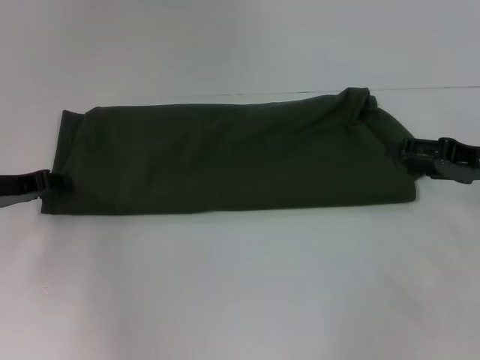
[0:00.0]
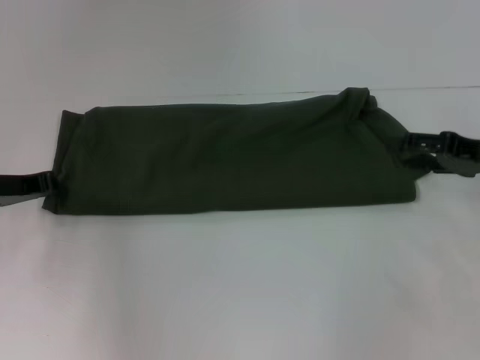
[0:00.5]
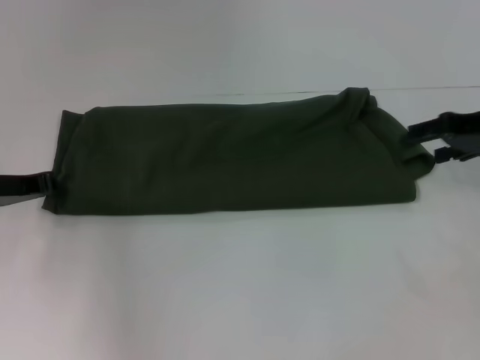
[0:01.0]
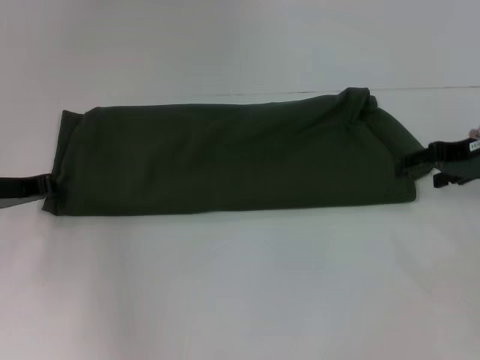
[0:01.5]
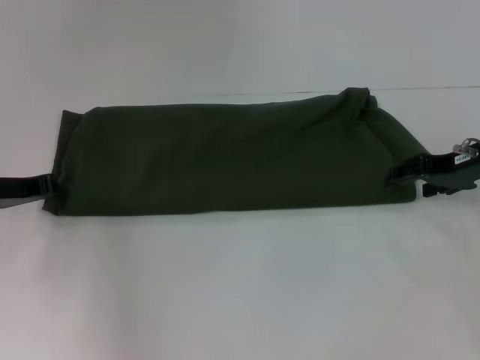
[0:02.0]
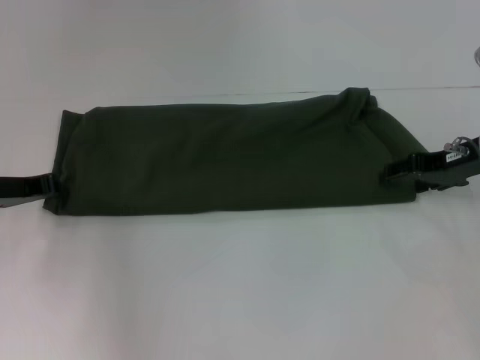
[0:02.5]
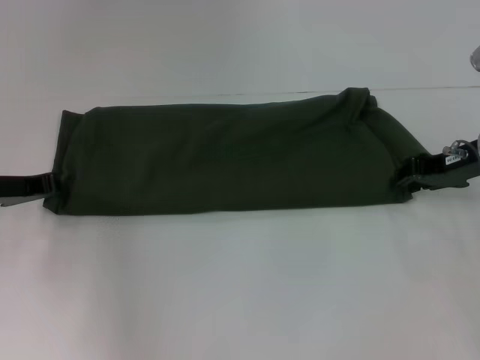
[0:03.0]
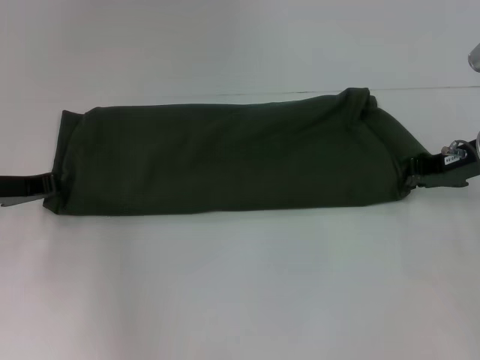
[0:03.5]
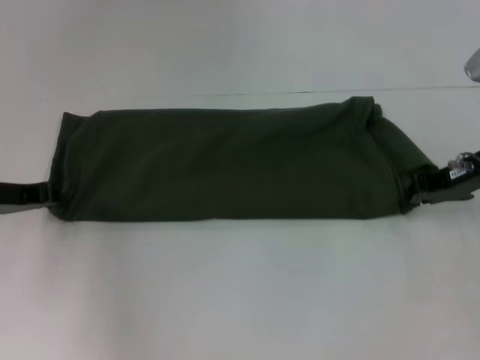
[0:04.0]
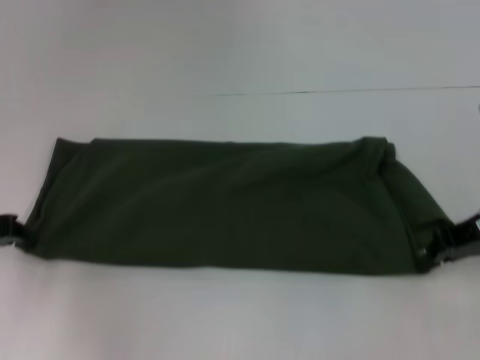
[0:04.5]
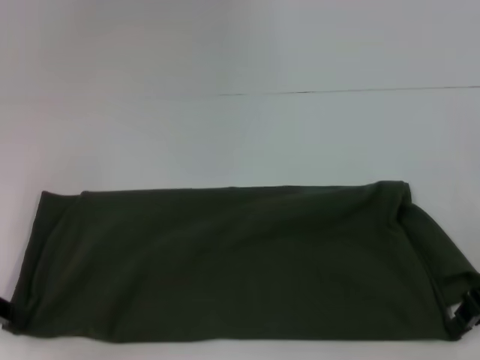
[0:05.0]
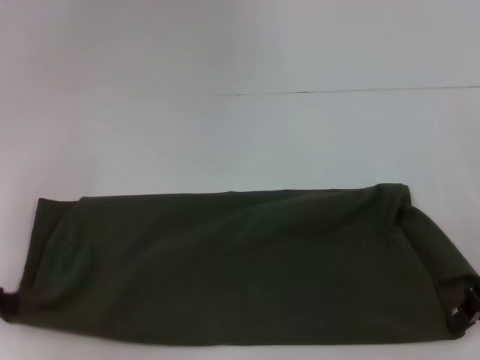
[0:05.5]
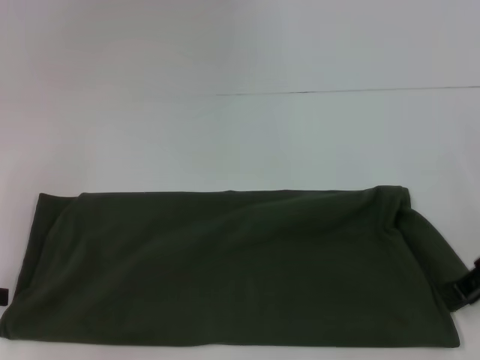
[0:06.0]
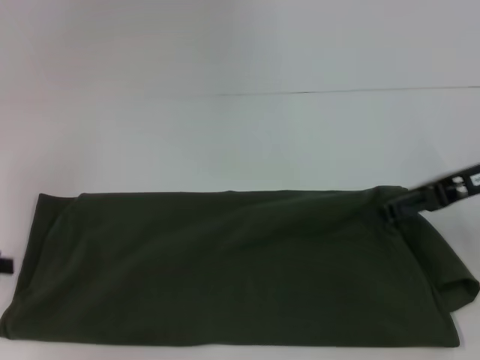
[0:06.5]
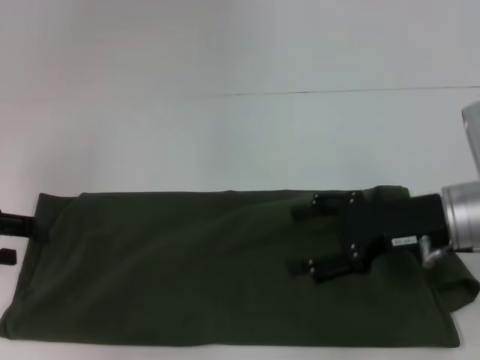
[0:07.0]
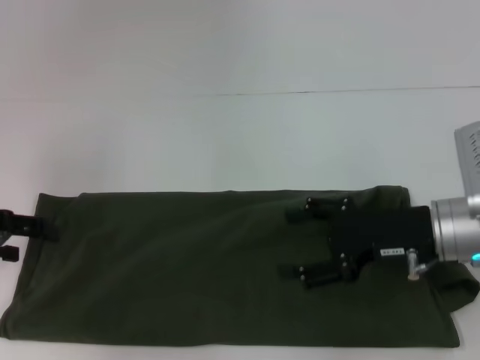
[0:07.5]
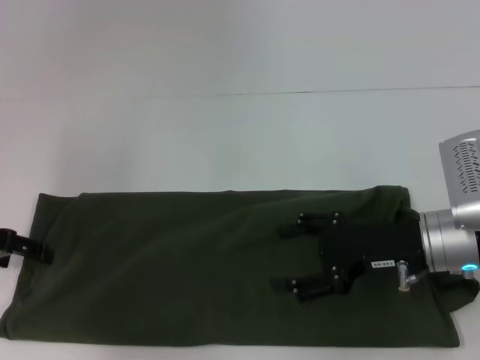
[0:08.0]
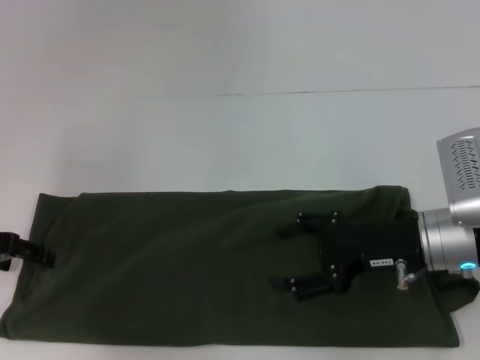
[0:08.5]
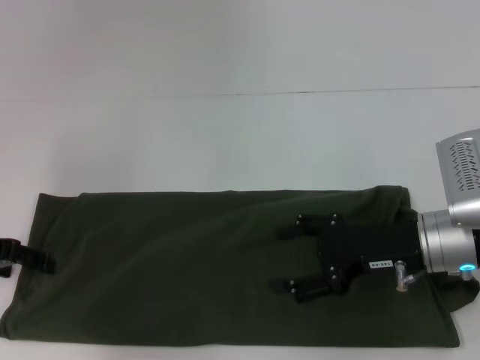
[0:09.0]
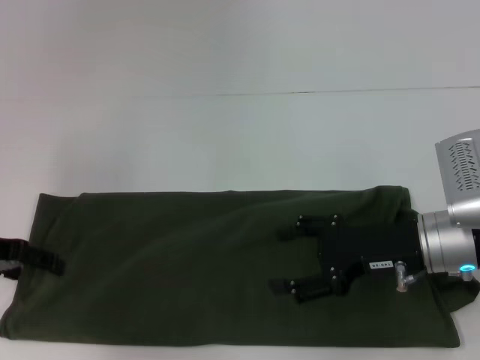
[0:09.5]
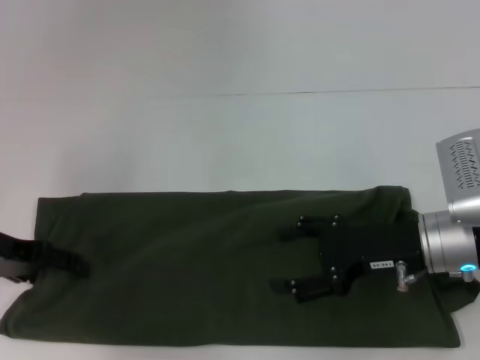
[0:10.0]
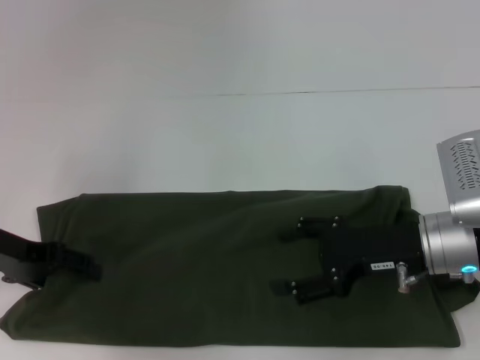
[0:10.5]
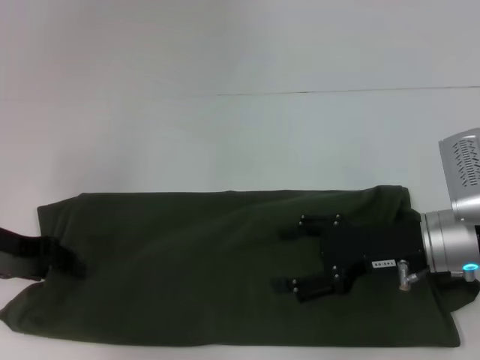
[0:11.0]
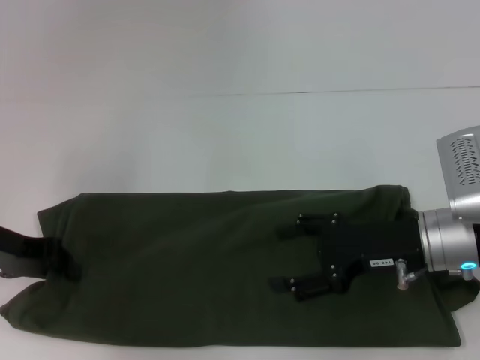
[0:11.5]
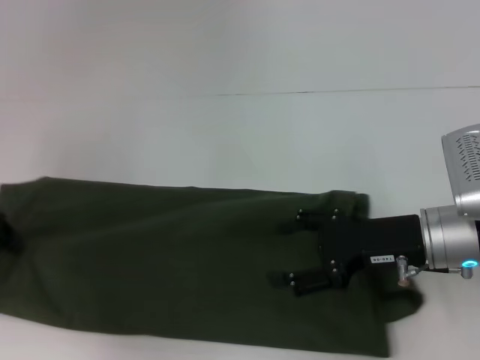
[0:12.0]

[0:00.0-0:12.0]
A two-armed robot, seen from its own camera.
0.0 to 2.0 s: The right gripper moves roughly 5 cm.
2.0 to 4.0 s: The right gripper closes.
4.0 to 6.0 s: The left gripper moves backward and to the left, some 10 cm; the right gripper shifts approximately 5 cm backward.
6.0 to 8.0 s: The left gripper heads forward, covering about 5 cm, and opens. The right gripper goes some 10 cm to the left and downward, and opens up.
8.0 to 10.0 s: The grippers stay close to where they were, moving slightly.
10.0 to 12.0 s: The left gripper closes.

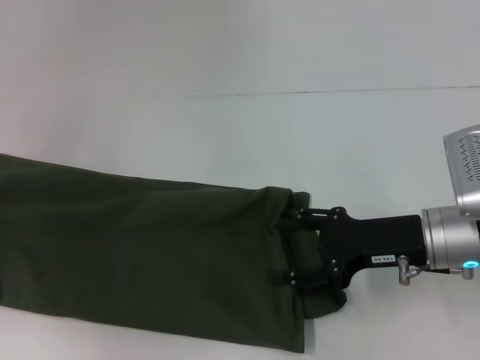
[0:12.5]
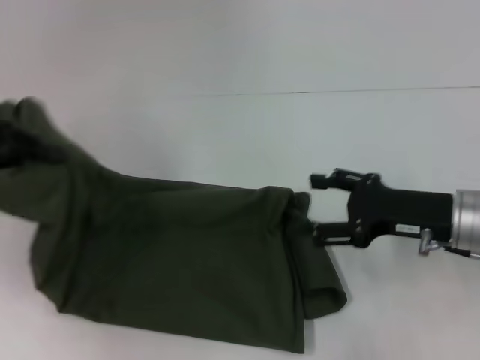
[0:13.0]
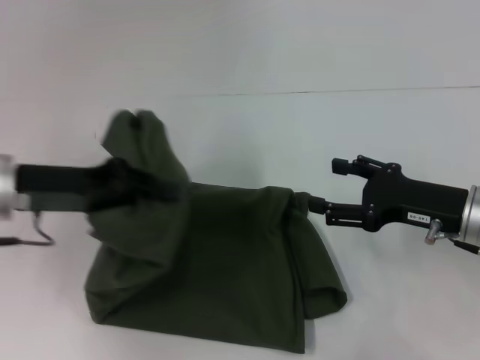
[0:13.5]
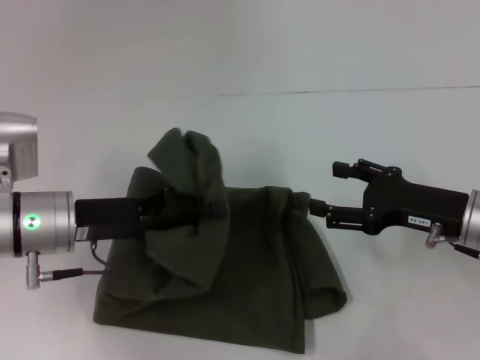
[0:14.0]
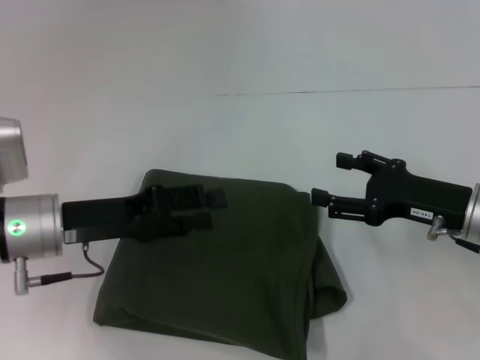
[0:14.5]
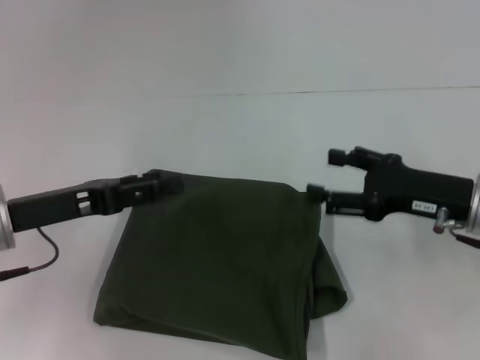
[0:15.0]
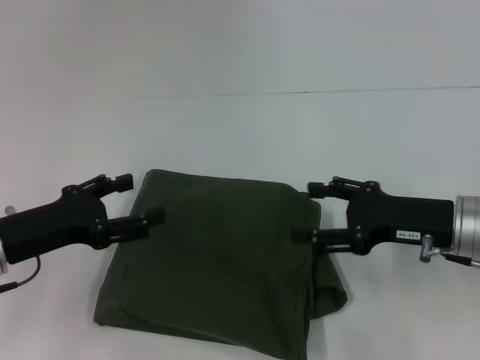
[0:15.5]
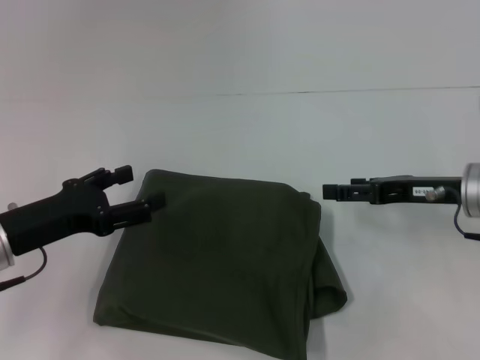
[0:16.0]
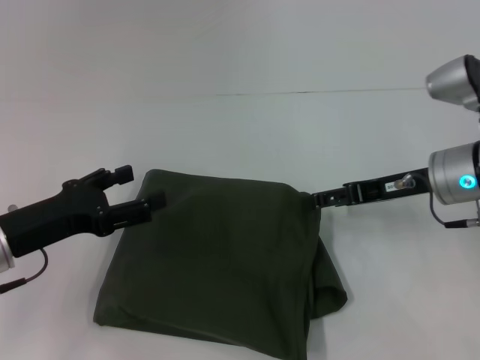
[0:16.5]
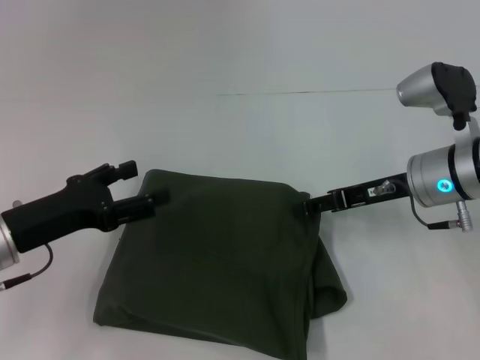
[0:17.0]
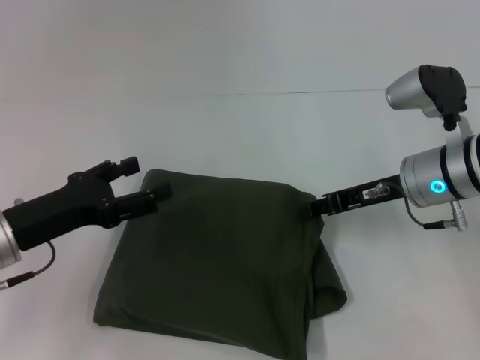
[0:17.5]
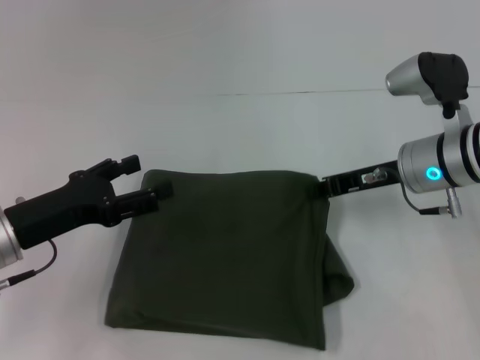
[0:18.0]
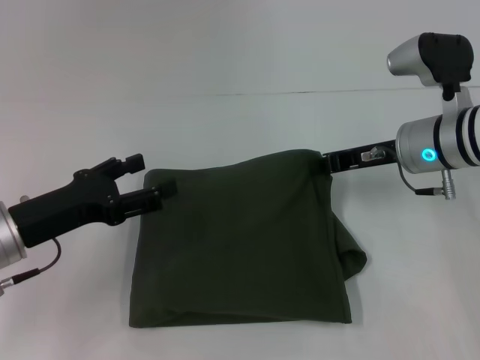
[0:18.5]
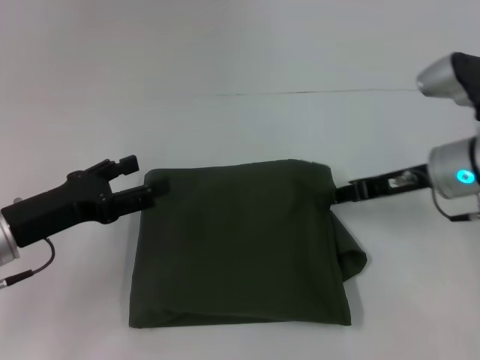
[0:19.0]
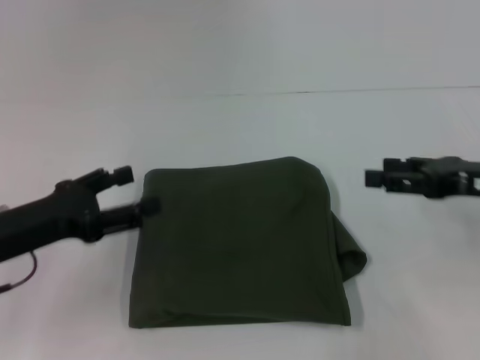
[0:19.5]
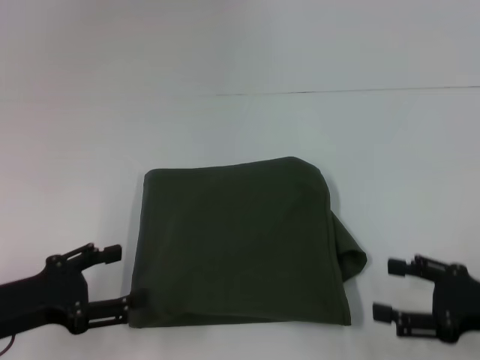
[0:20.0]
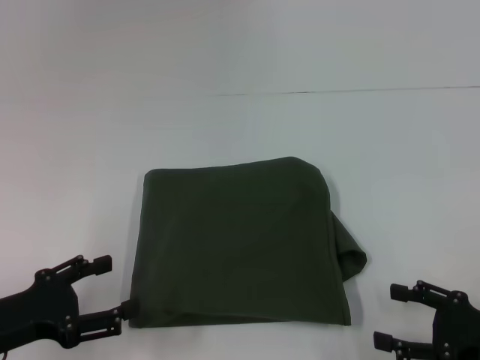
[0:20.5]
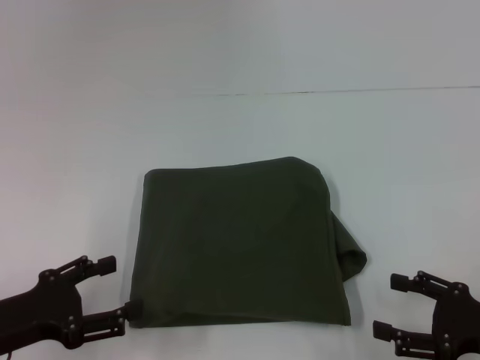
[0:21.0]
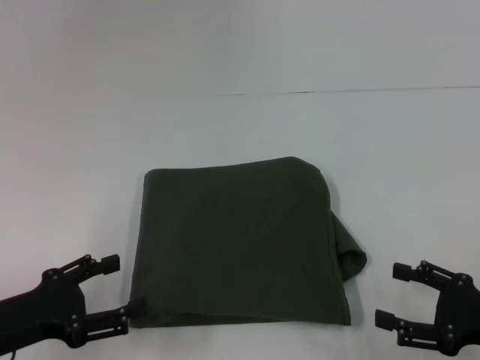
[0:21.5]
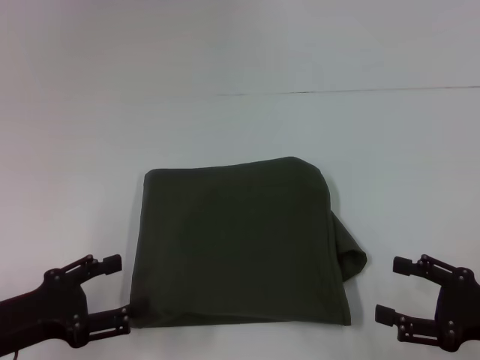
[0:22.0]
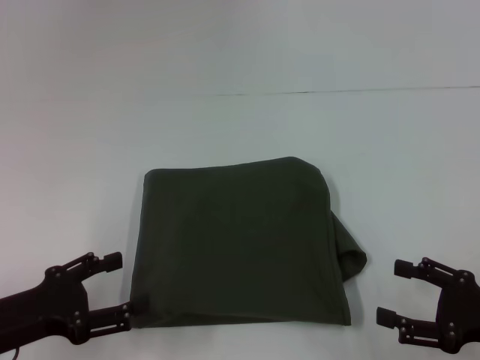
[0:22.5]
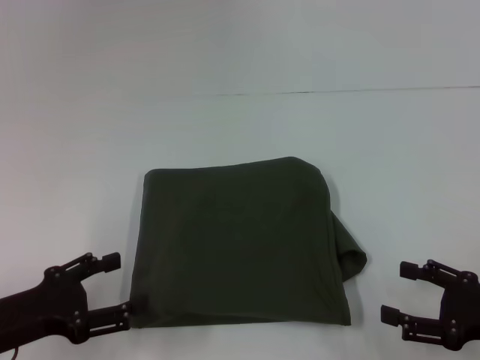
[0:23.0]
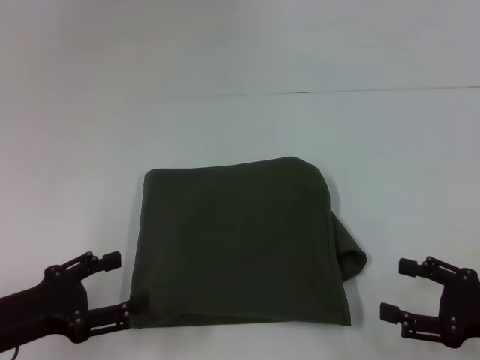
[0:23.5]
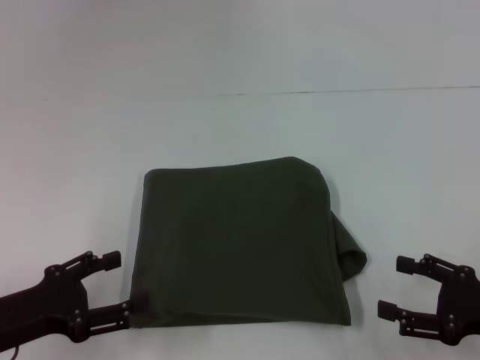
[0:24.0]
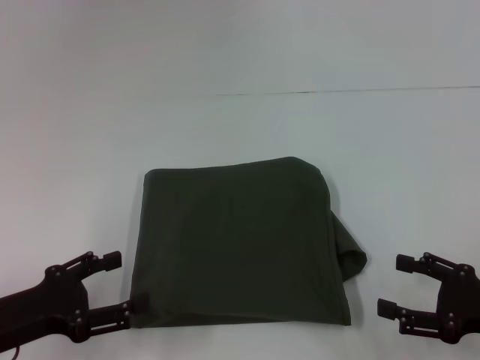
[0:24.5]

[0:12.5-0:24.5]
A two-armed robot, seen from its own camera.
Step, 12.5 to 14.5 s: Fold the clothes with your left hand.
12.5 to 14.5 s: The left gripper goes some 20 cm to the right, and opens up.
14.5 to 16.5 s: The left gripper shifts by approximately 5 cm, and opens its fingers. Meanwhile the right gripper is displaced forward by about 5 cm.
16.5 to 18.5 s: The right gripper closes up.
18.5 to 20.5 s: The left gripper is displaced backward by about 10 cm. The right gripper is displaced backward and to the right by roughly 25 cm, and opens up.
20.5 to 22.5 s: The grippers stay close to where they were, moving slightly.
22.5 to 24.5 s: Both grippers stay put.

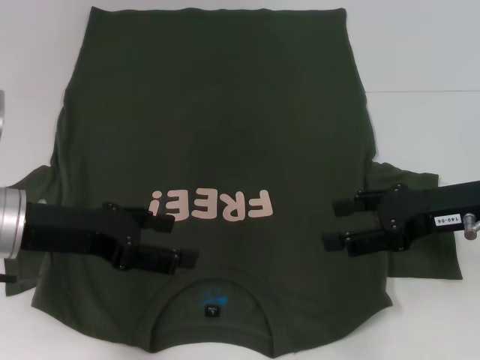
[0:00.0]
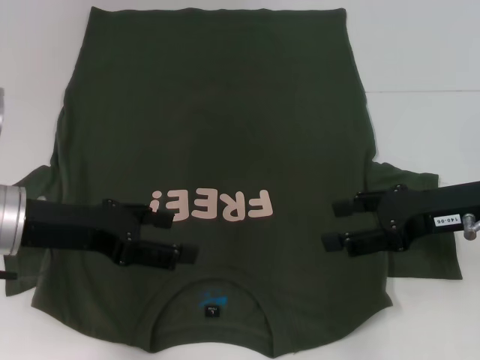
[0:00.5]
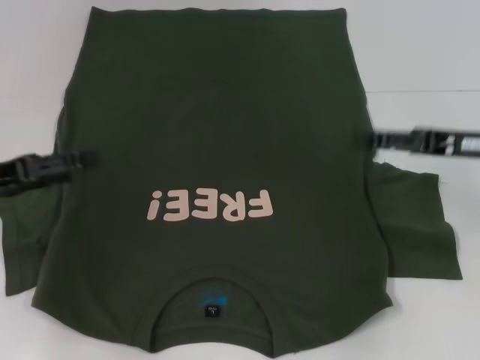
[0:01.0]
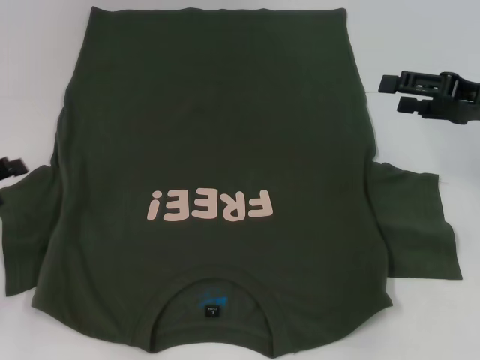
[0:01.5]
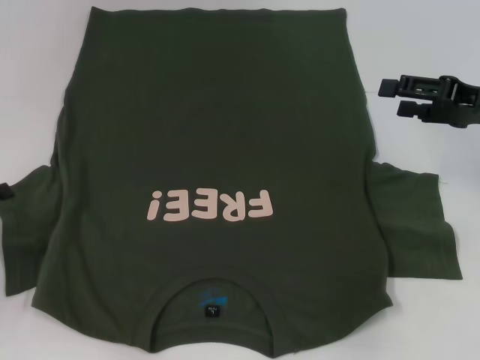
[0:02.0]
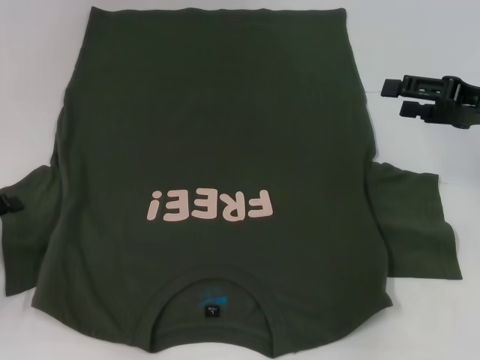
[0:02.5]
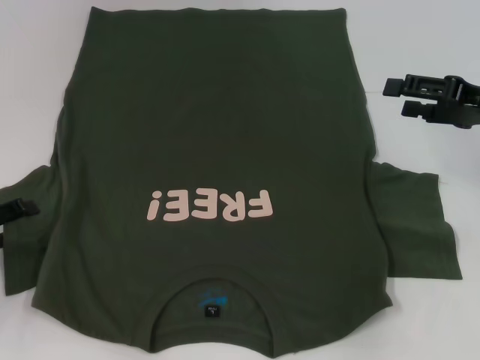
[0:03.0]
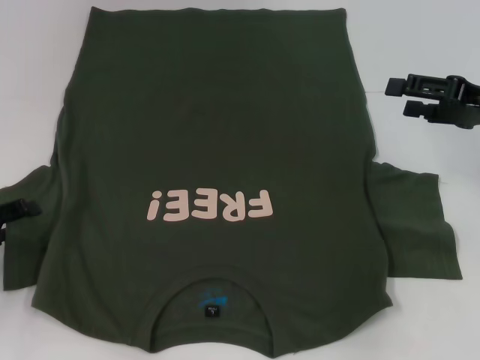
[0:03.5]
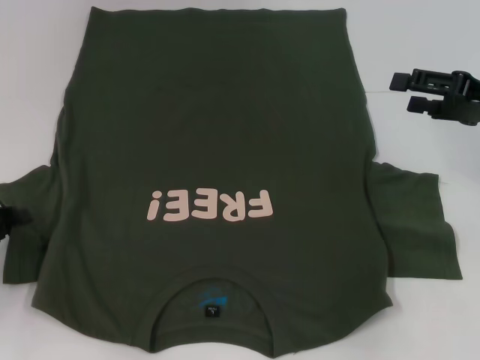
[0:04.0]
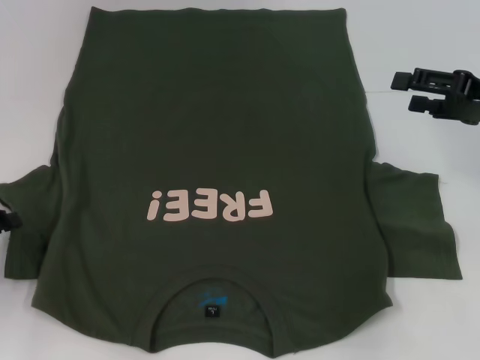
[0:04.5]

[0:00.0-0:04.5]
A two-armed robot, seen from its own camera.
0.0 to 2.0 s: The left gripper goes some 15 cm to the left and downward. The right gripper is displaced forward and to the right by approximately 10 cm.
2.0 to 4.5 s: The left gripper closes up.
